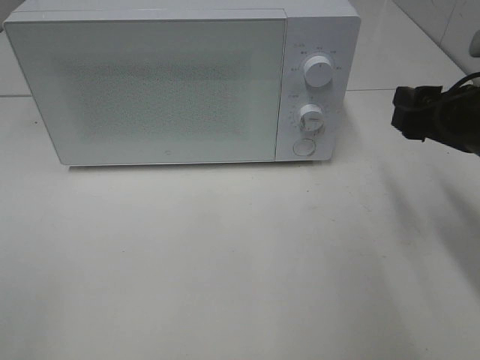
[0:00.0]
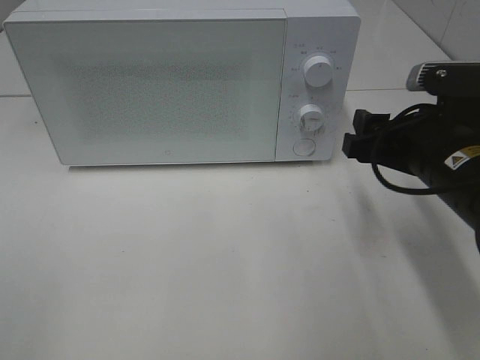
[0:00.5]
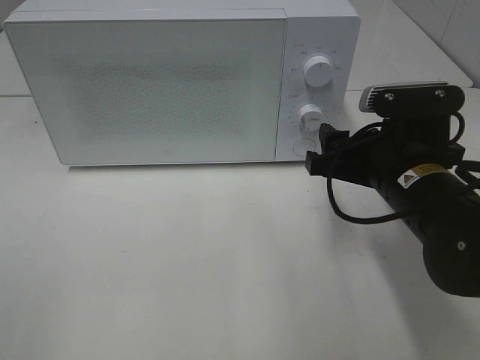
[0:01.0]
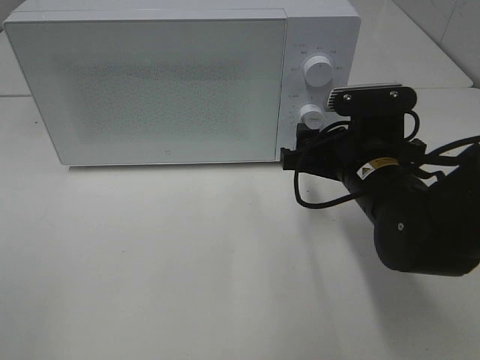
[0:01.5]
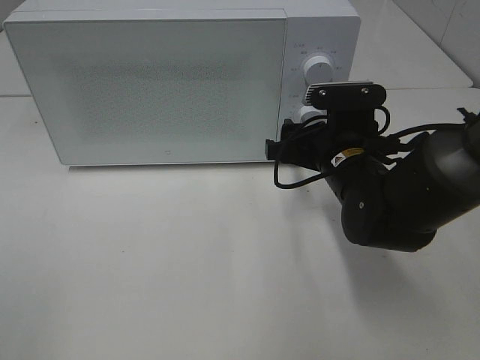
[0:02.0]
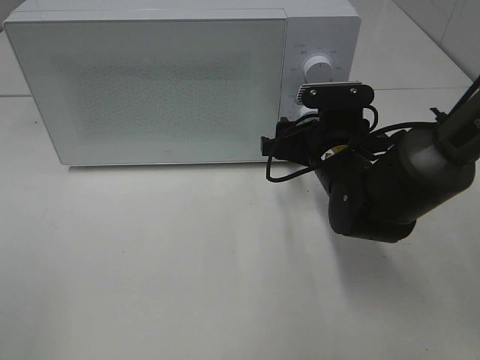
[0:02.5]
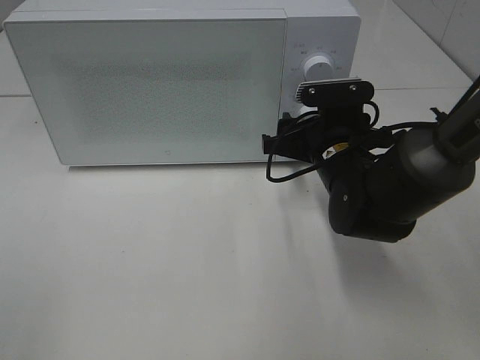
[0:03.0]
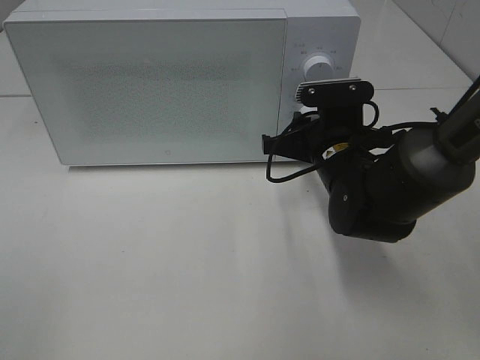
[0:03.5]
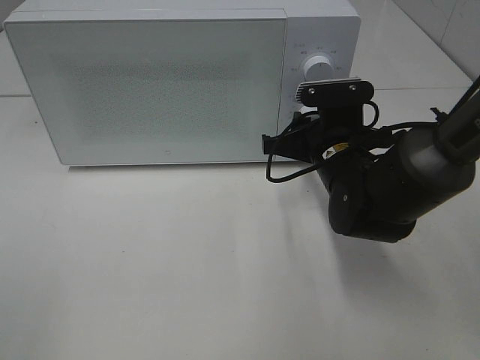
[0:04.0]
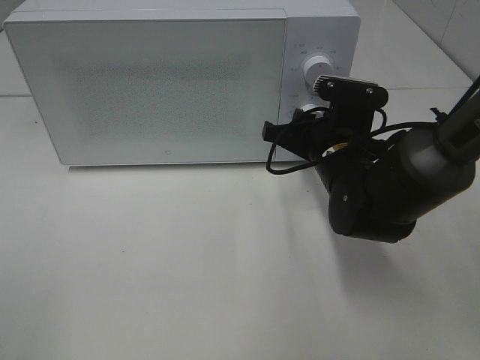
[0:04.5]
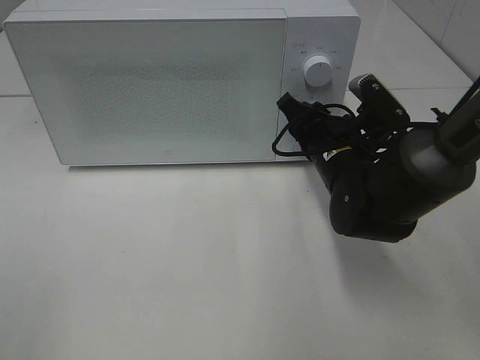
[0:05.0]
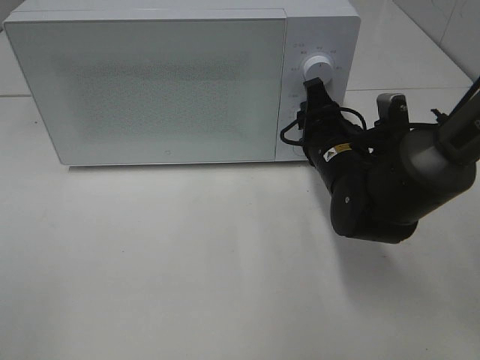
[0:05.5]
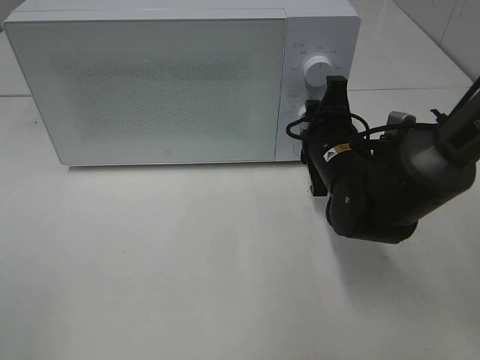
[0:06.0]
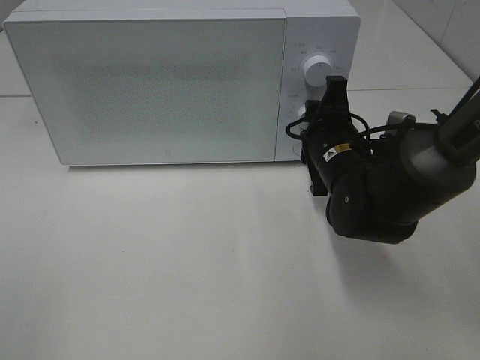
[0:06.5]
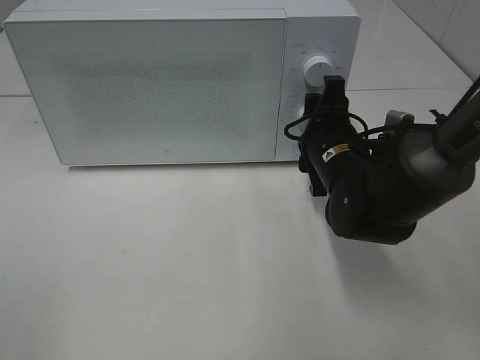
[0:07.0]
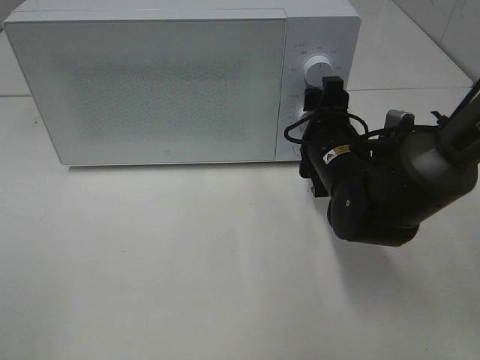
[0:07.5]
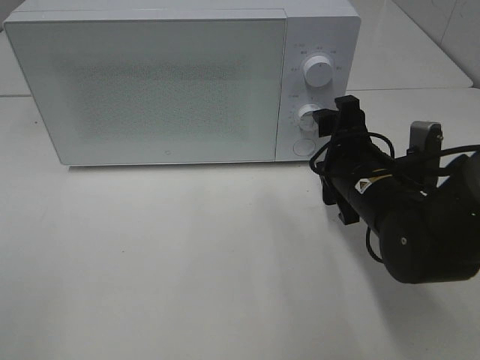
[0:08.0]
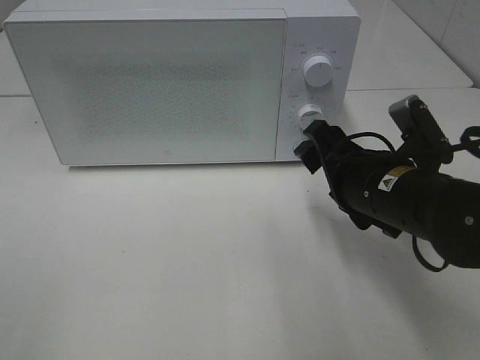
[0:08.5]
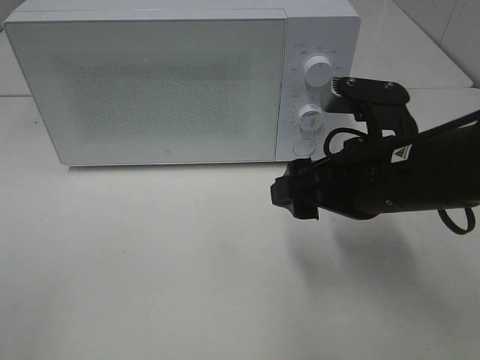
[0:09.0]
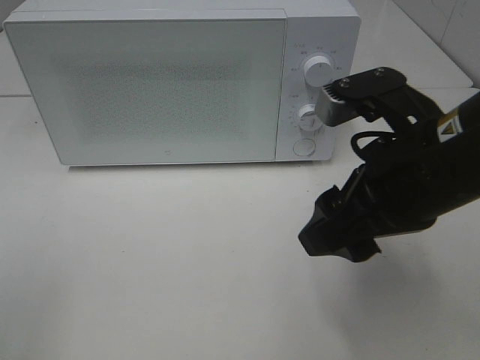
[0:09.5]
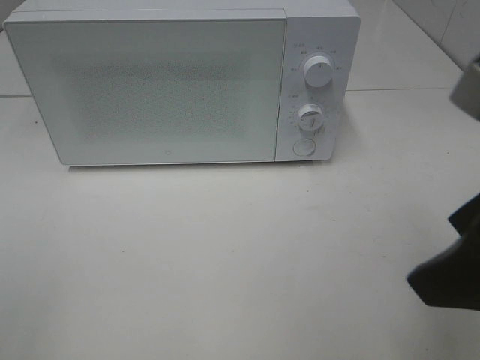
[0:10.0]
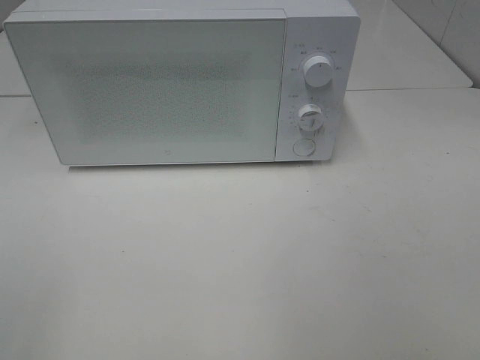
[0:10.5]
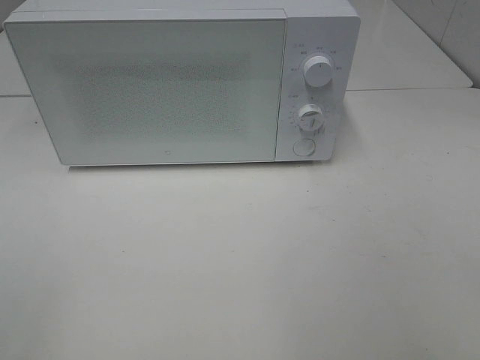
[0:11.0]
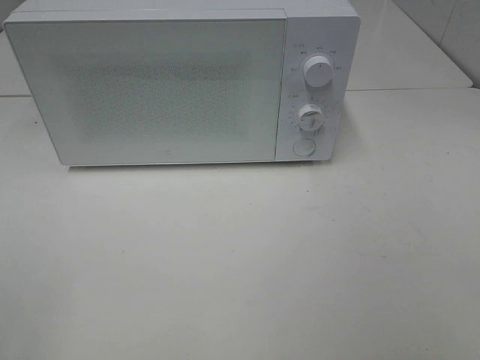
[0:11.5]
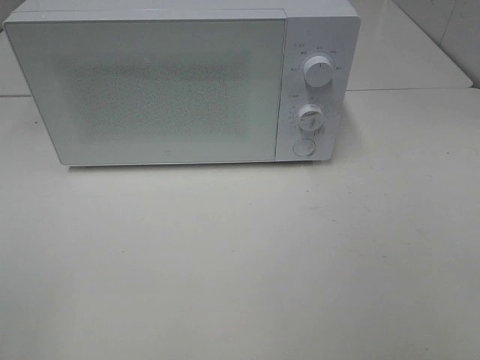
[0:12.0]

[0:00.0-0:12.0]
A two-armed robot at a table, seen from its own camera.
Task of the whole recording: Heat Sandwich.
Step, 0:00.0 to 0:08.0: Right hand: twist timer button.
0:00.0 to 0:02.0: The right gripper moves to the left, downward and forward, approximately 15 cm.
0:02.0 to 0:04.0: The right gripper closes up.
0:06.0 to 0:08.0: The right gripper shifts by about 5 cm, and opens its fingers.
0:08.0 to 0:10.0: The right gripper travels upward and backward by roughly 25 cm.
0:10.0 to 0:12.0: The right gripper heads backward and to the right, covering some 15 cm.

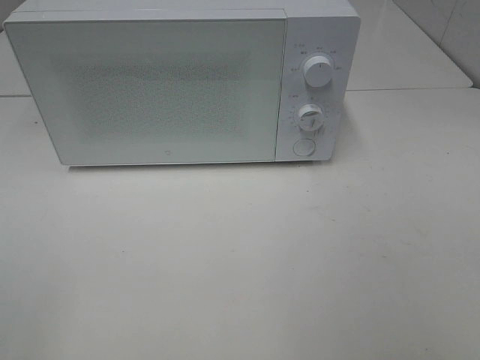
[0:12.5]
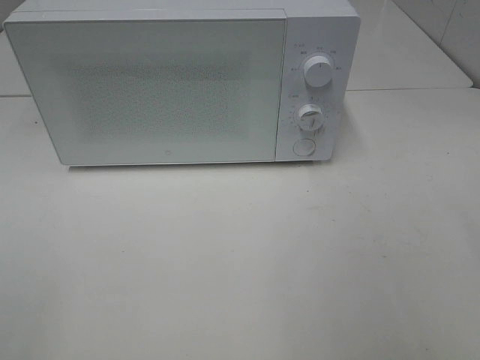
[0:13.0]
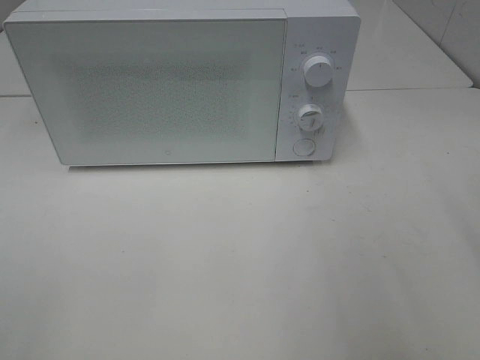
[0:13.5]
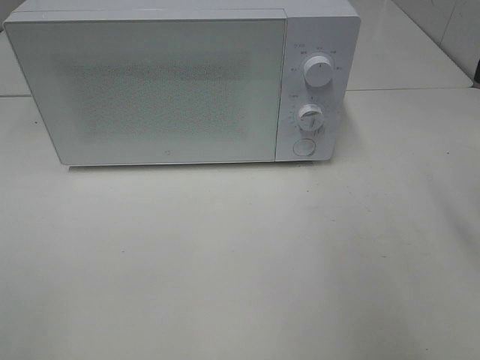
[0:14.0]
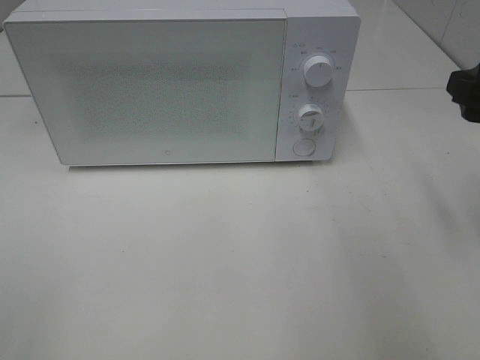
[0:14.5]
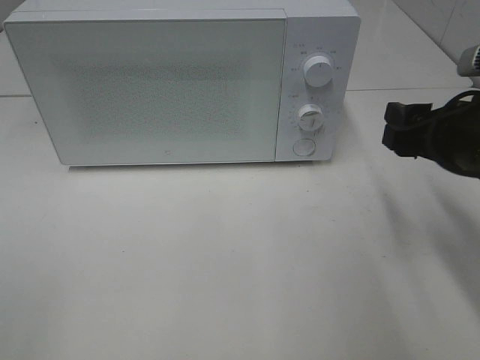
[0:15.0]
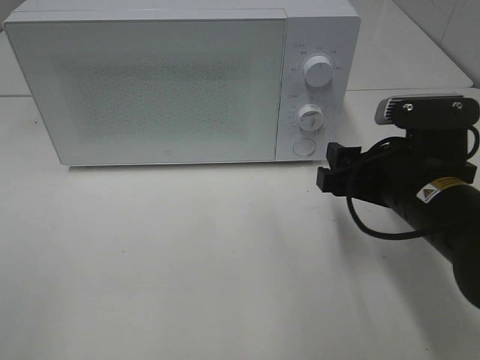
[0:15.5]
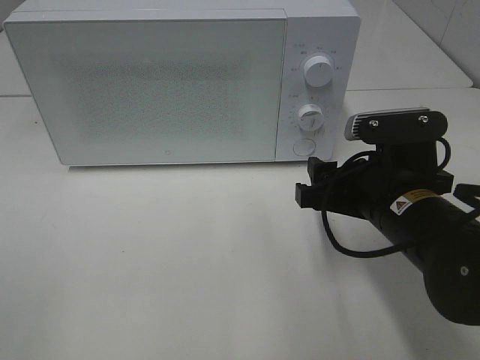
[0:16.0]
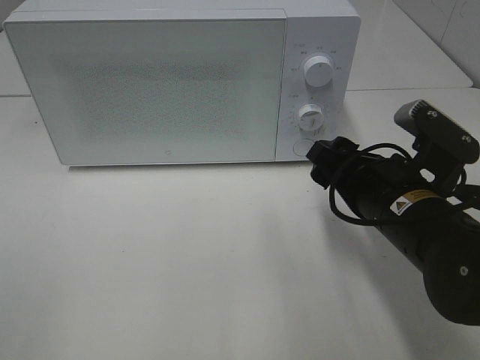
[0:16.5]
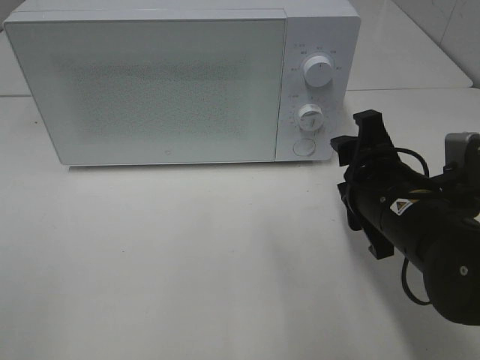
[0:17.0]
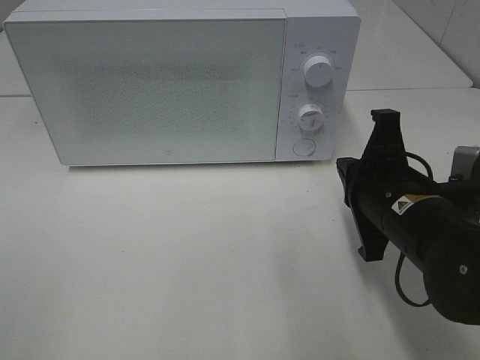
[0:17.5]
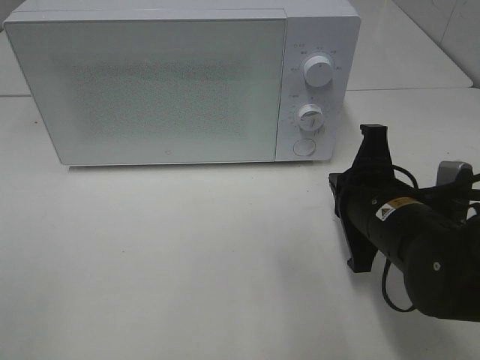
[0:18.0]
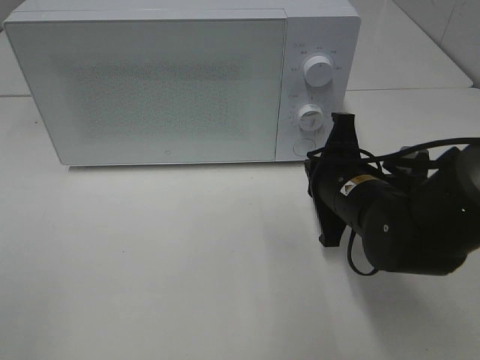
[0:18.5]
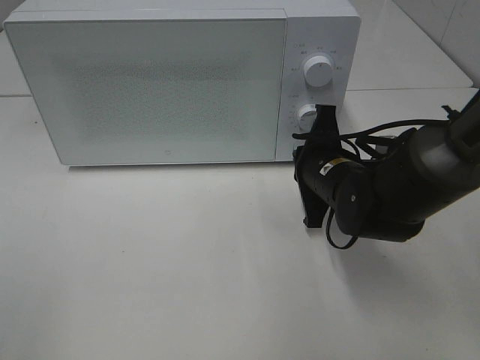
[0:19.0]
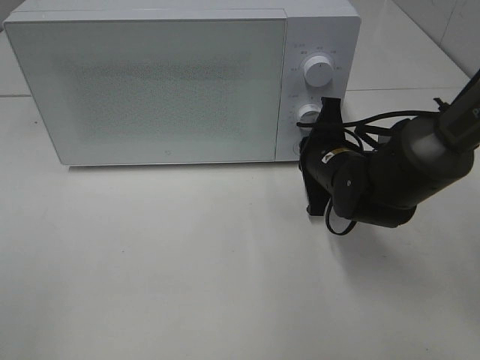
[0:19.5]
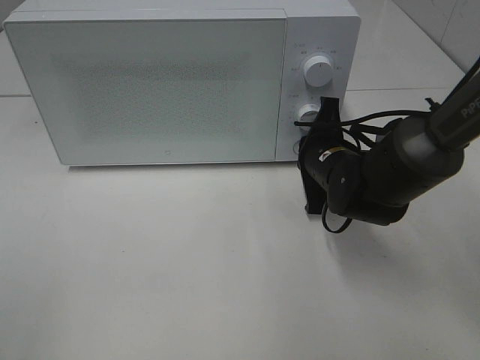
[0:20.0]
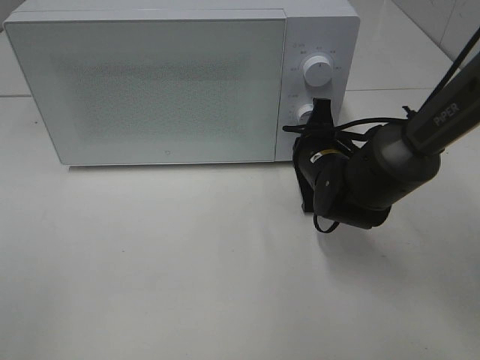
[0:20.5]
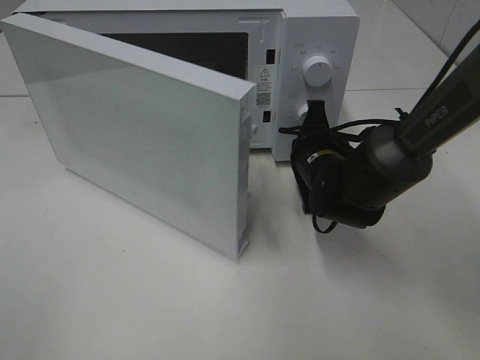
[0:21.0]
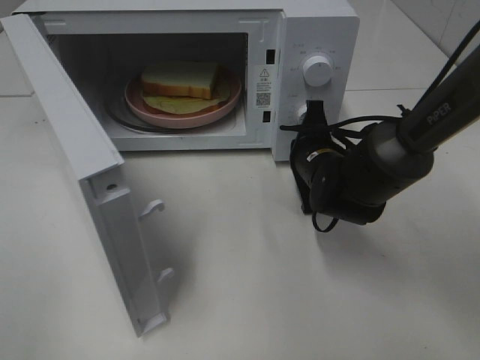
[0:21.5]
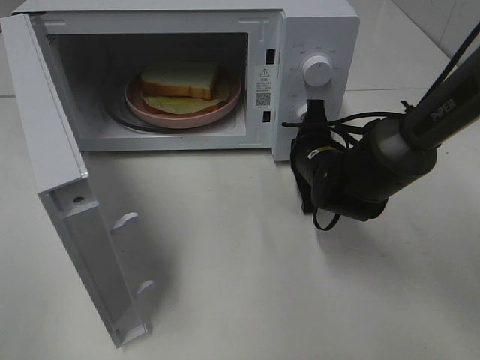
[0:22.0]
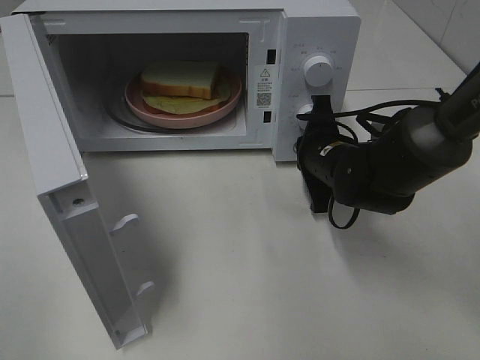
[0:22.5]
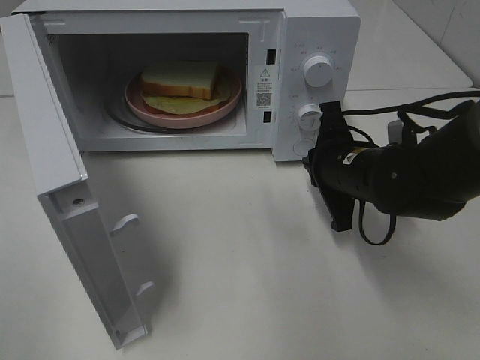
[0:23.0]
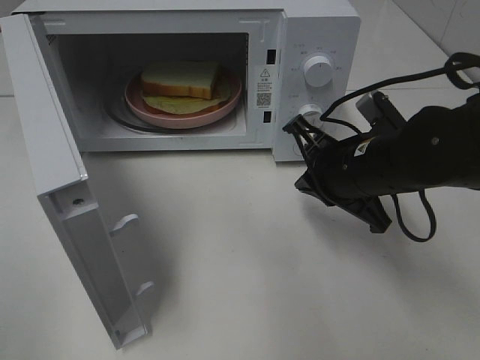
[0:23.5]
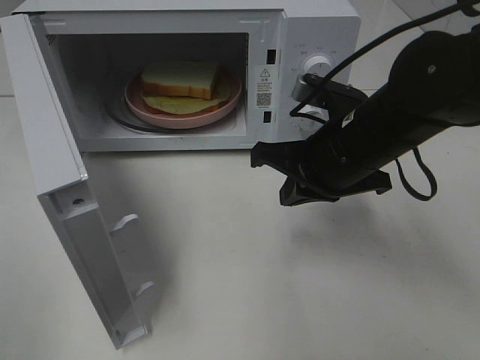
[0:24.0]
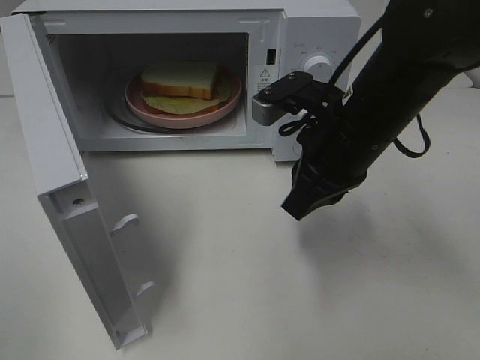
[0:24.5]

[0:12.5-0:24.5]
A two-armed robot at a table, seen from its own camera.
Task of the whole recording: Heat Sandwich.
Step, 0:12.5 to 0:22.5: Right hand: press the switch.
0:12.5 to 0:14.5: The right gripper goes some 20 cm forward.
0:14.5 to 0:16.5: The right gripper moves to the left and downward, roughly 15 cm.
0:16.5 to 0:18.5: The right gripper is displaced forward by approximately 5 cm, and closes its fingers.
0:18.5 to 0:20.5: The right gripper heads forward, covering approximately 10 cm.
0:22.5 to 0:24.5: The right gripper shifts some 15 cm upward and backward.

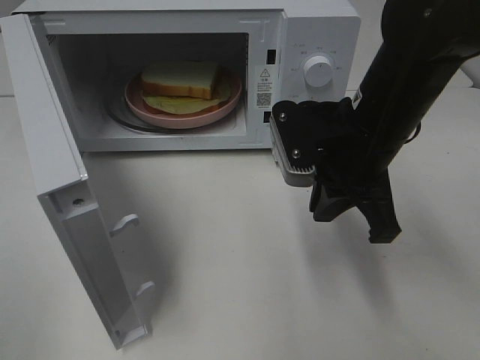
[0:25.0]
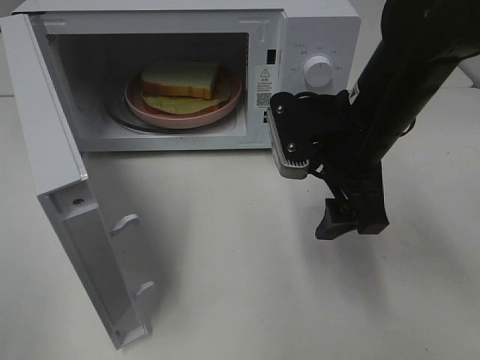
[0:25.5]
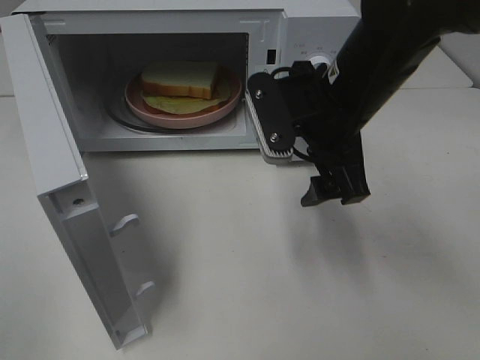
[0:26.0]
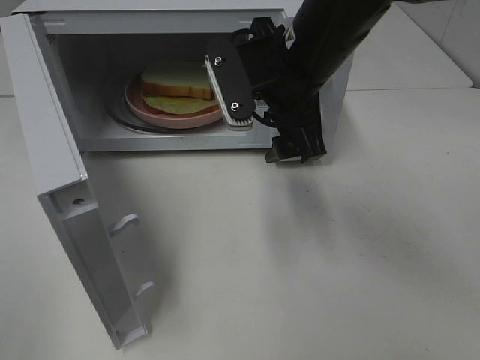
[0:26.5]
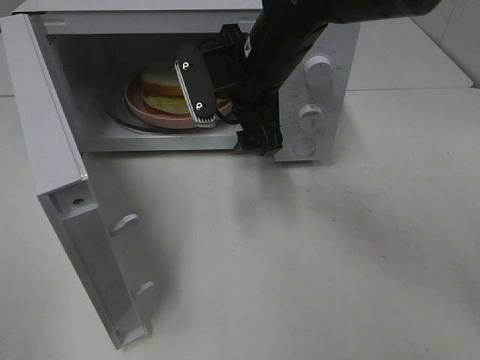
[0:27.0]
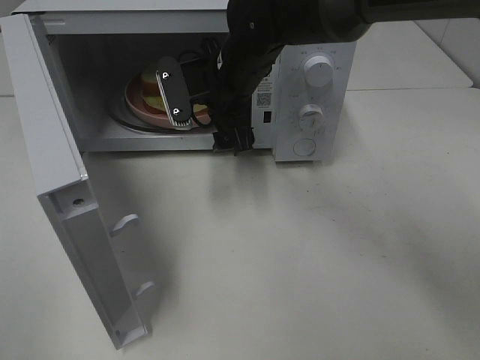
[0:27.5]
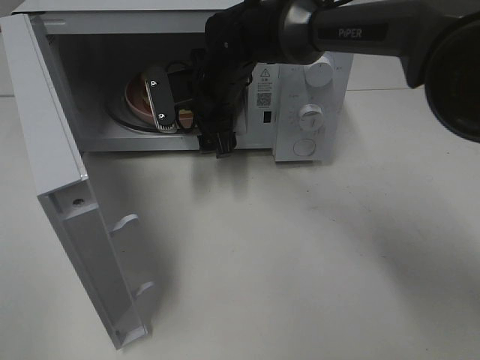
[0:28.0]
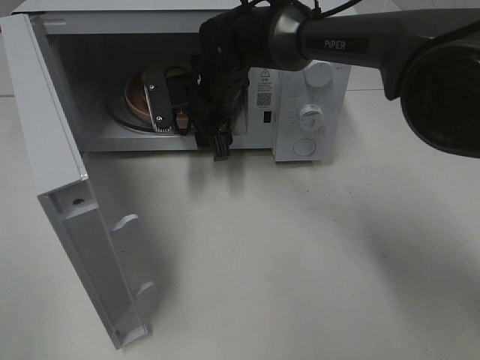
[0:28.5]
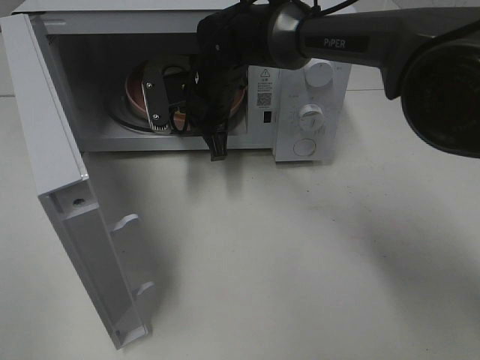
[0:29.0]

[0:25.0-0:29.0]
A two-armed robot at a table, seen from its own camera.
Task of the whole recording: Heat Sandwich.
Step, 0:25.0 to 0:28.5: Right hand: grab the plate with the sandwich.
0:25.0 to 0:27.0: The right gripper goes some 15 cm to the left and forward, and opens up.
0:27.0 to 0:29.0: The right gripper shifts roughly 10 cm forward, downward and to the left, and closes its fingers.
